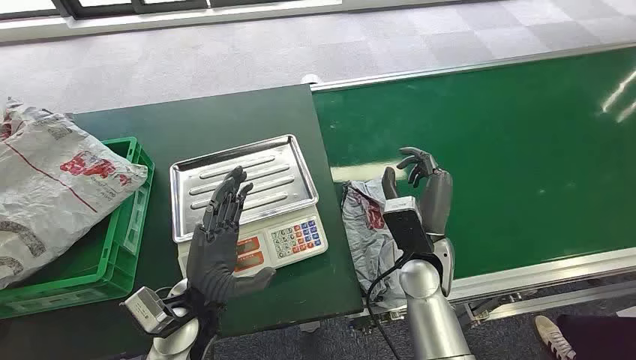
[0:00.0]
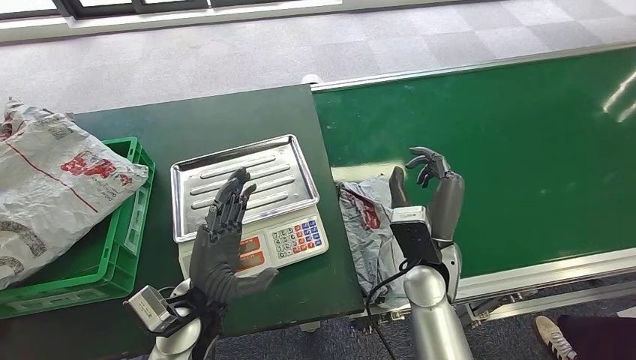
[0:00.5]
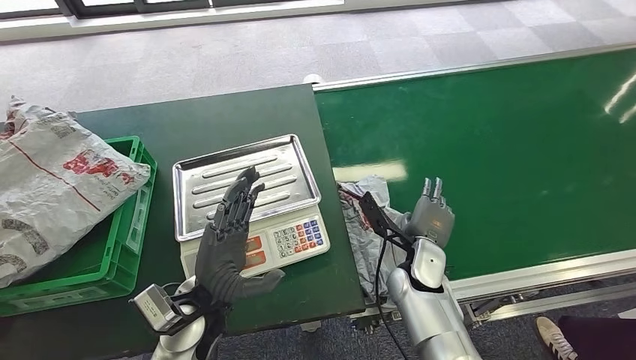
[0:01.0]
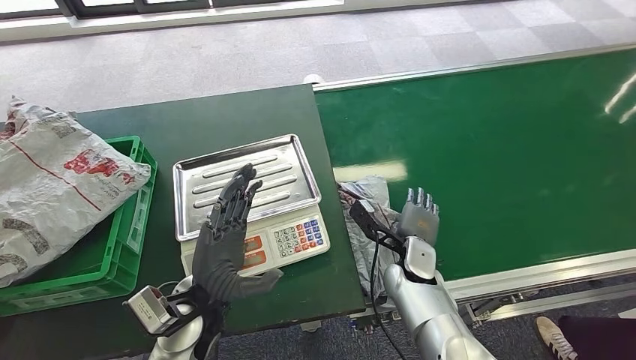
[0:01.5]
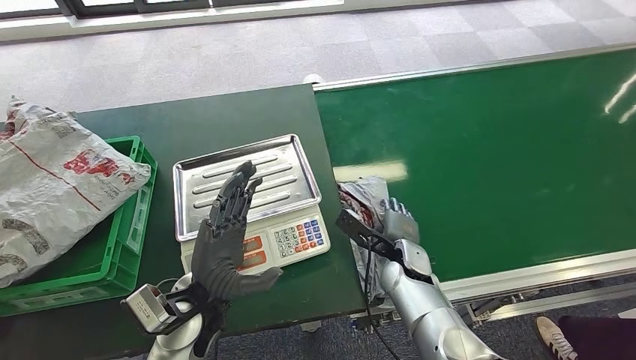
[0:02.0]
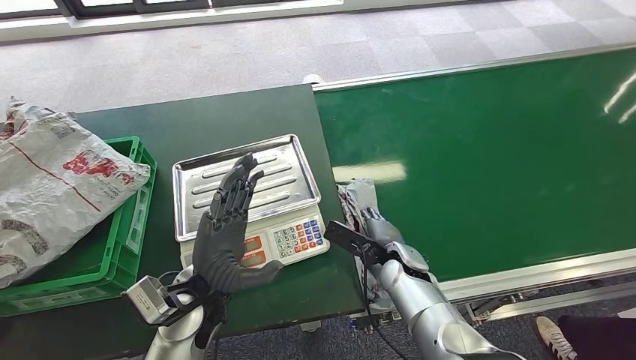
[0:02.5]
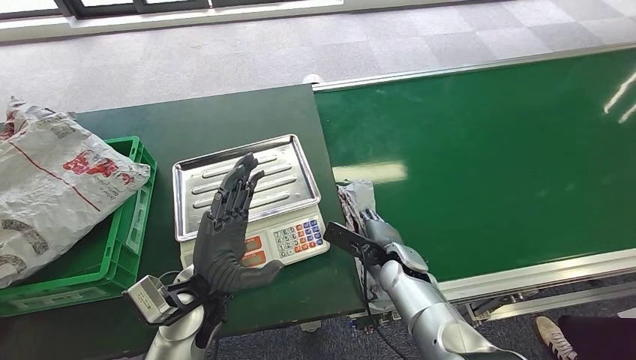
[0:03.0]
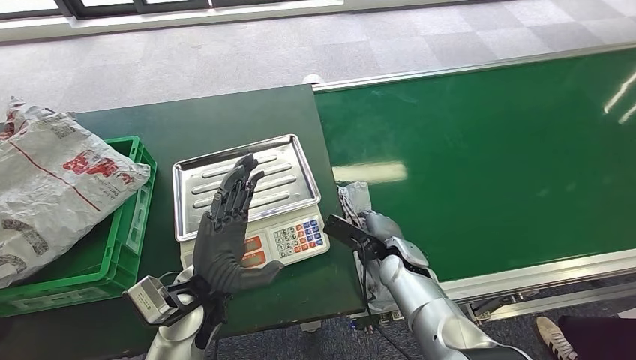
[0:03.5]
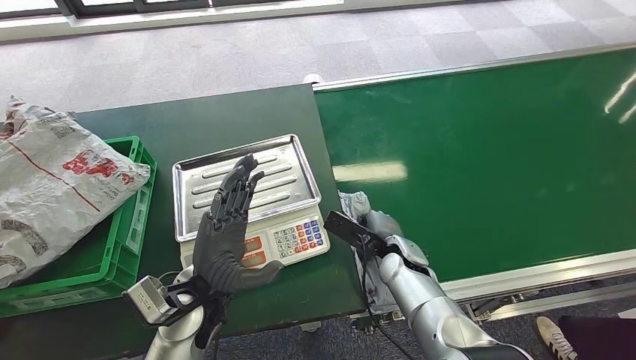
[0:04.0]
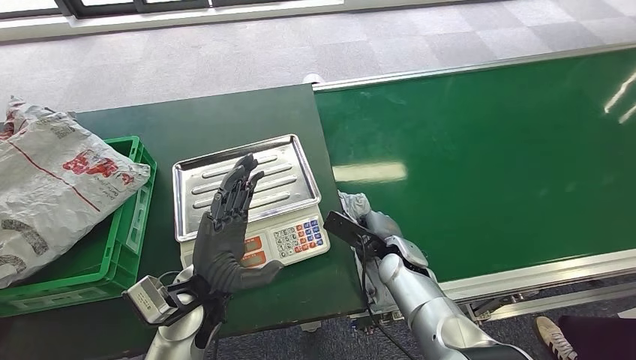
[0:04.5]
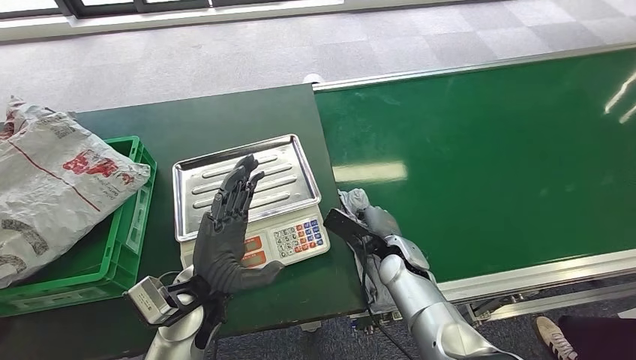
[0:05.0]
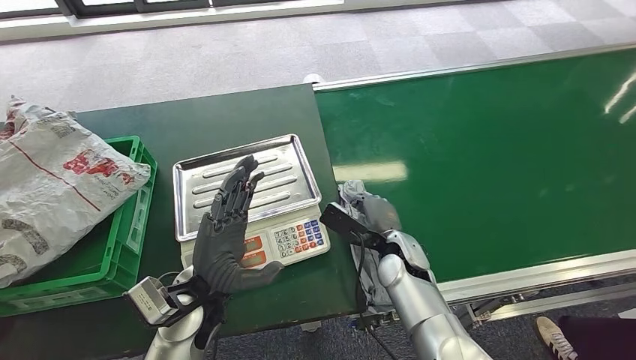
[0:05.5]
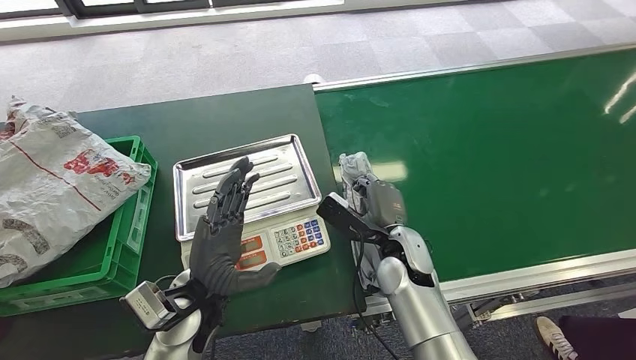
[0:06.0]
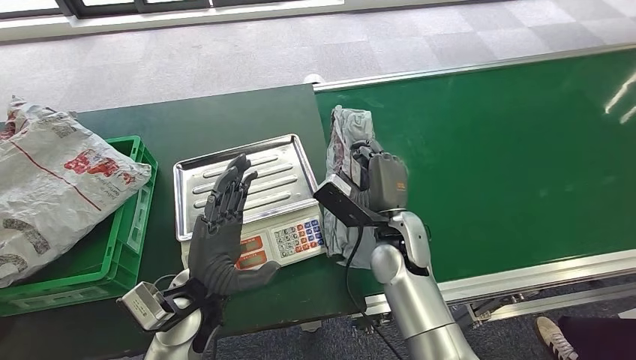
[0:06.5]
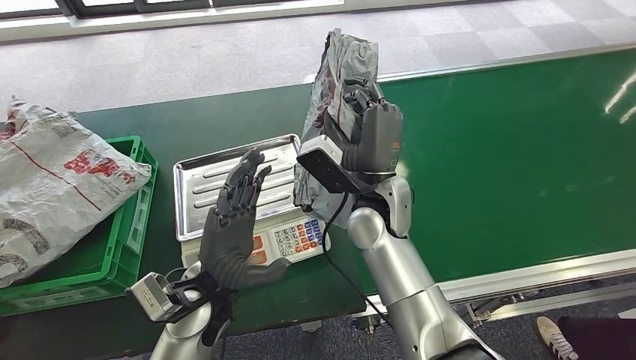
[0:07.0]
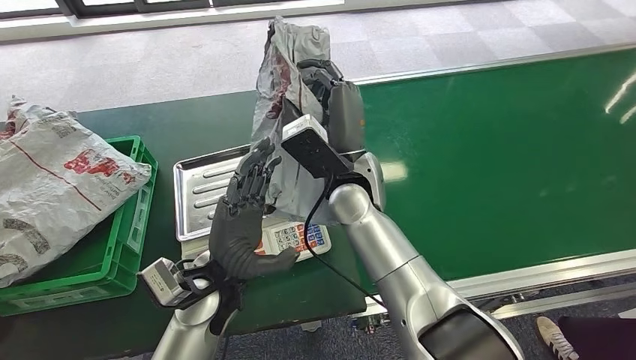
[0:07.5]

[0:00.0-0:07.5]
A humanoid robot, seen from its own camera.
Step, 0:00.0 to 0:07.5: Pick up the package from the conveyor belt.
0:02.0 to 0:04.0: The hands make only small movements.
0:04.0 to 0:05.5: There are only small adjustments of the hands.
0:05.5 to 0:07.5: The right hand goes roughly 20 cm upward and to the left.
